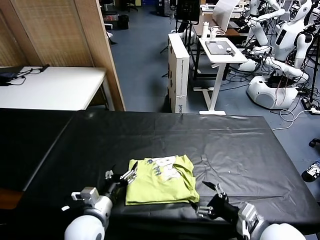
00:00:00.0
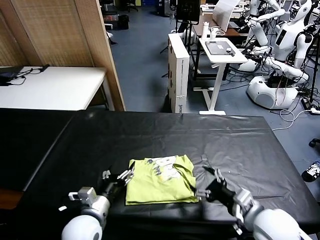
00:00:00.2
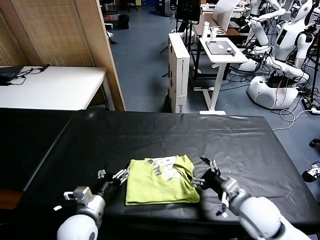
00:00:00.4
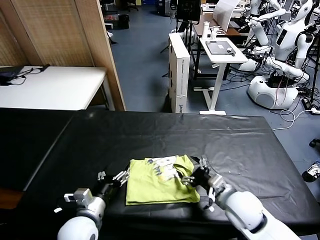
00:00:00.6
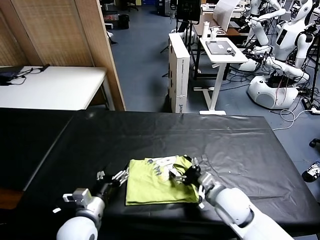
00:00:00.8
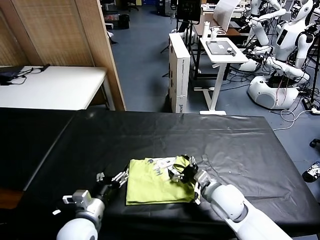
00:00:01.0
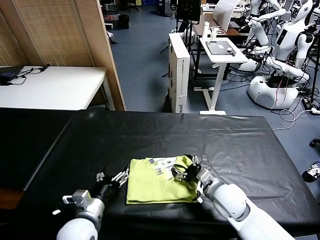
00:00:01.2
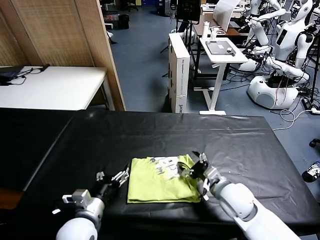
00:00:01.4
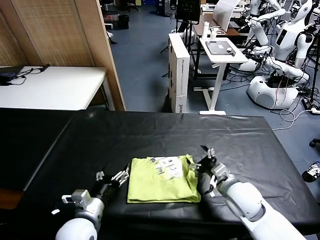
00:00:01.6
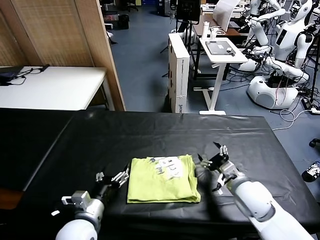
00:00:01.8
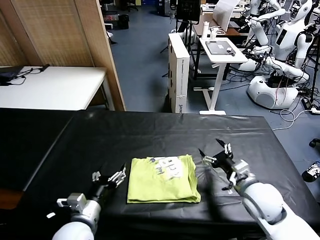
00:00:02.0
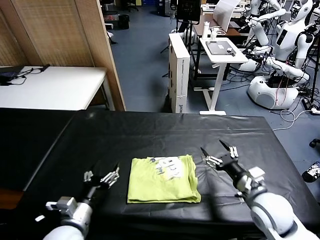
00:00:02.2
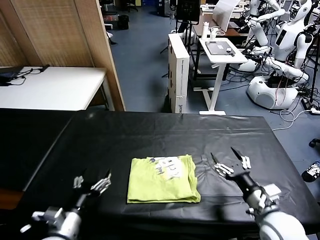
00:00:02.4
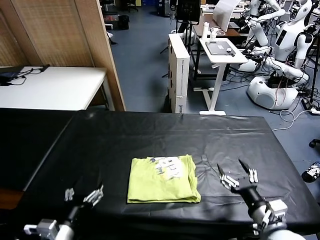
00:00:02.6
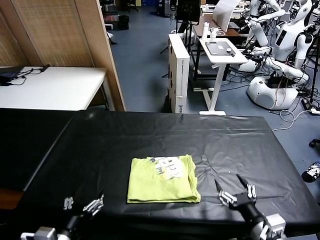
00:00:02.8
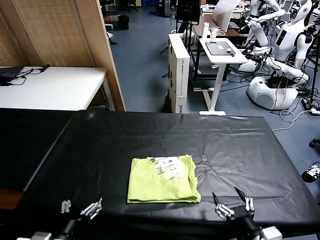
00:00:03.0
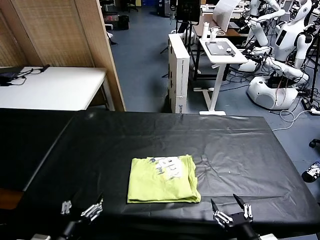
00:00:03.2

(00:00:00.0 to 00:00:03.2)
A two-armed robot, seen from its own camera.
Task of the whole recording: fold and organize the clothes.
00:00:00.0 - 00:00:01.6: The right gripper moves forward, roughly 10 cm.
00:00:01.6 - 00:00:03.2: The right gripper travels backward by some 20 cm. Meanwhile the left gripper goes about 10 cm backward.
